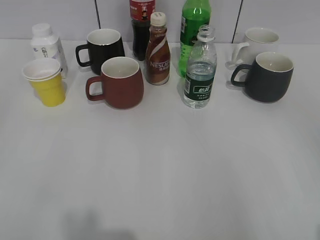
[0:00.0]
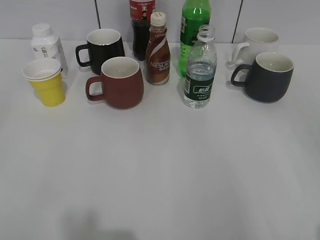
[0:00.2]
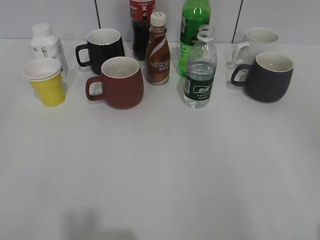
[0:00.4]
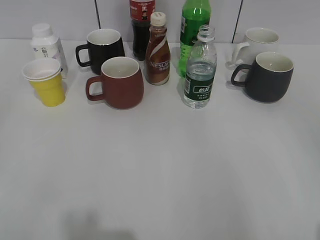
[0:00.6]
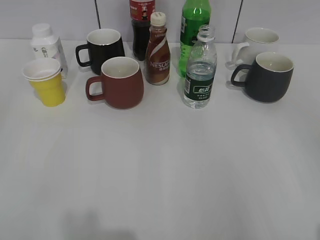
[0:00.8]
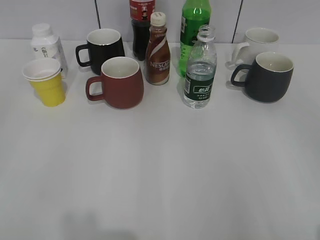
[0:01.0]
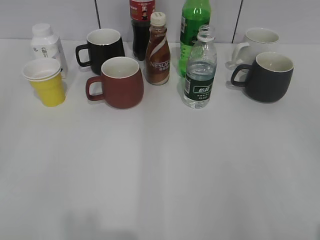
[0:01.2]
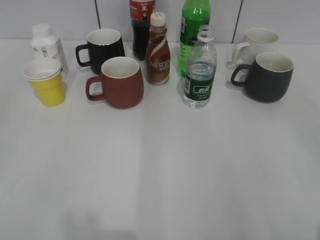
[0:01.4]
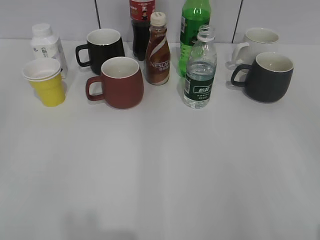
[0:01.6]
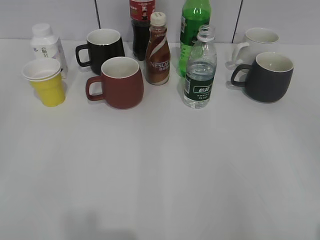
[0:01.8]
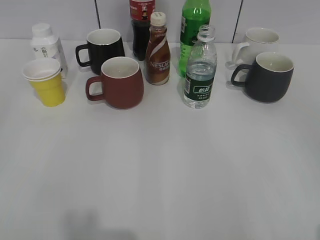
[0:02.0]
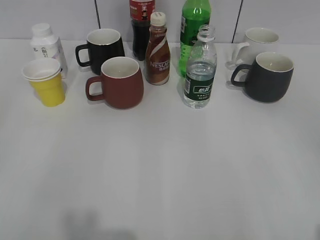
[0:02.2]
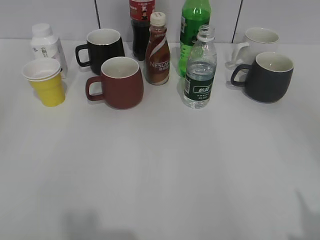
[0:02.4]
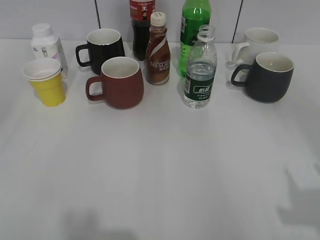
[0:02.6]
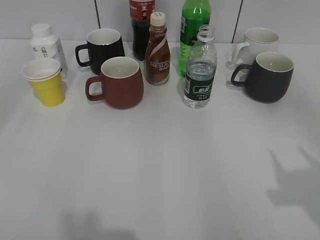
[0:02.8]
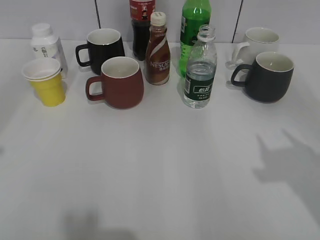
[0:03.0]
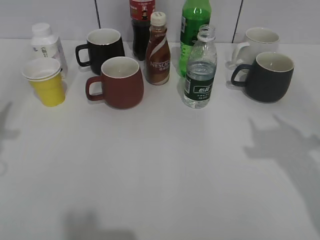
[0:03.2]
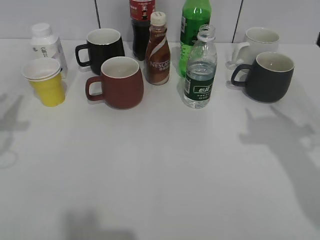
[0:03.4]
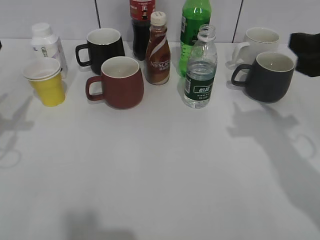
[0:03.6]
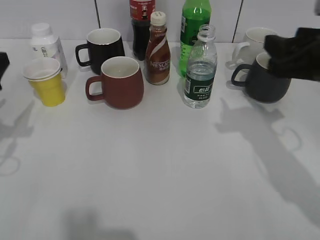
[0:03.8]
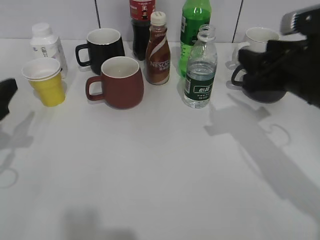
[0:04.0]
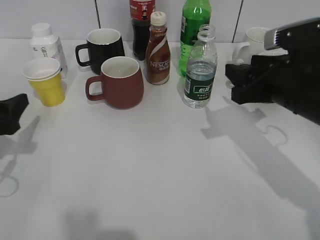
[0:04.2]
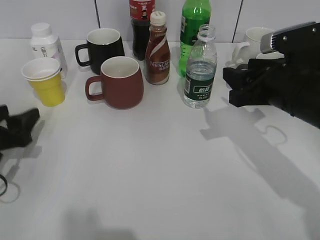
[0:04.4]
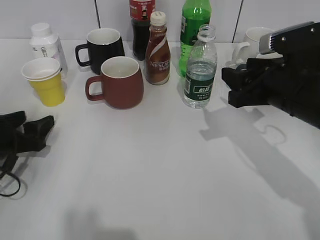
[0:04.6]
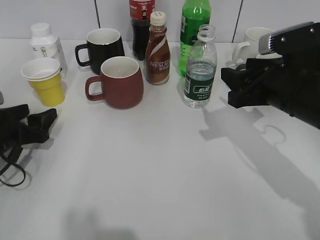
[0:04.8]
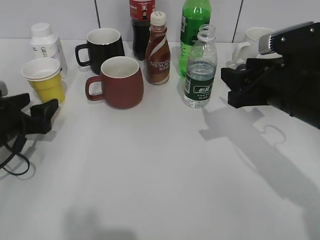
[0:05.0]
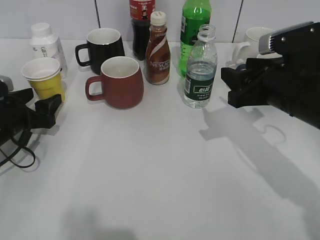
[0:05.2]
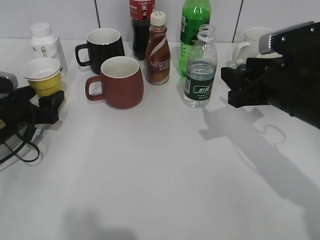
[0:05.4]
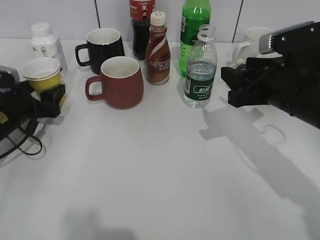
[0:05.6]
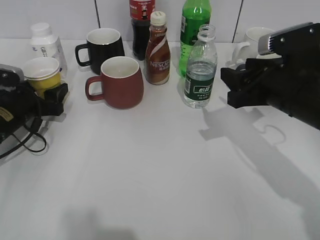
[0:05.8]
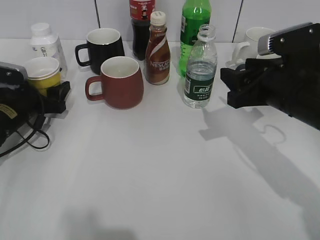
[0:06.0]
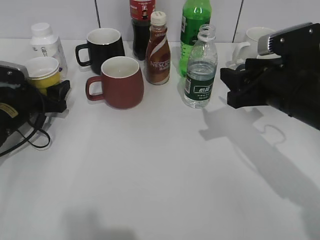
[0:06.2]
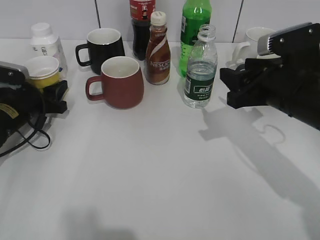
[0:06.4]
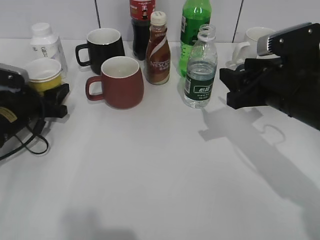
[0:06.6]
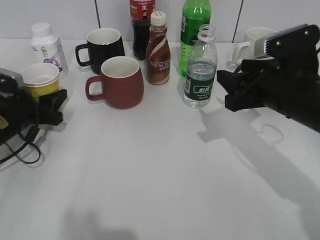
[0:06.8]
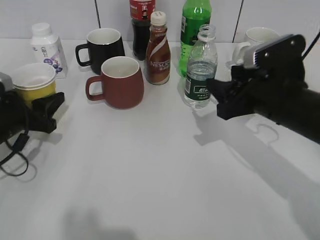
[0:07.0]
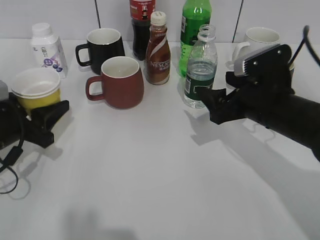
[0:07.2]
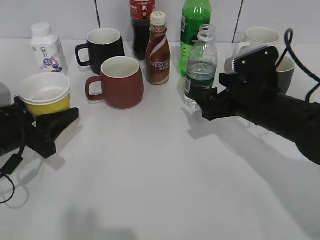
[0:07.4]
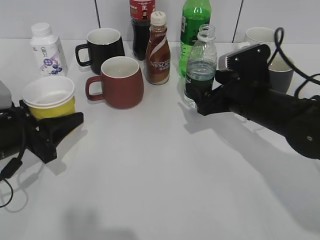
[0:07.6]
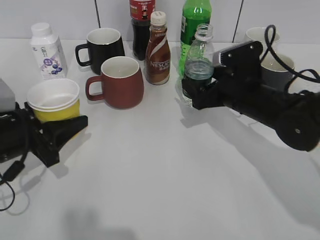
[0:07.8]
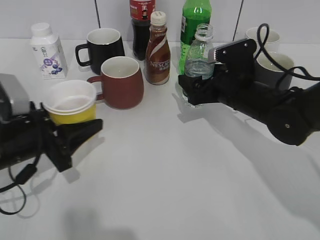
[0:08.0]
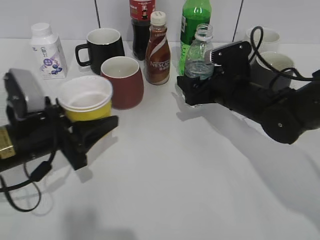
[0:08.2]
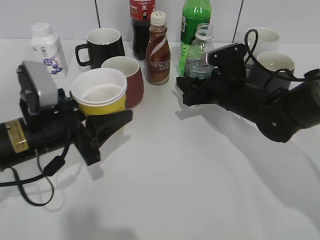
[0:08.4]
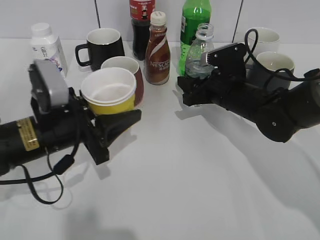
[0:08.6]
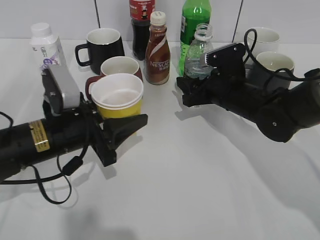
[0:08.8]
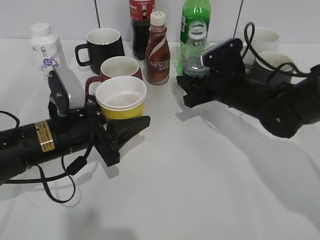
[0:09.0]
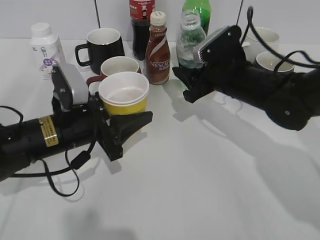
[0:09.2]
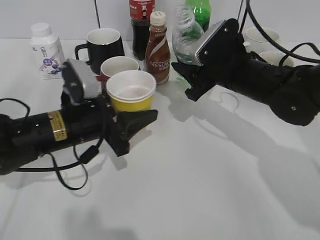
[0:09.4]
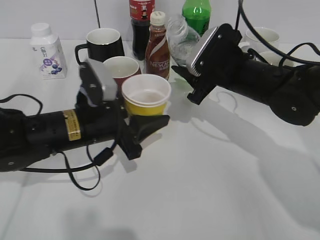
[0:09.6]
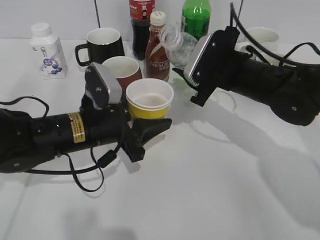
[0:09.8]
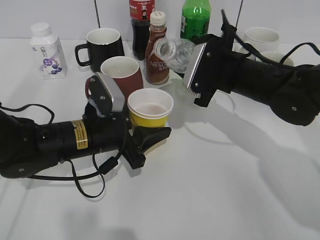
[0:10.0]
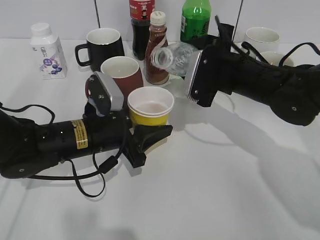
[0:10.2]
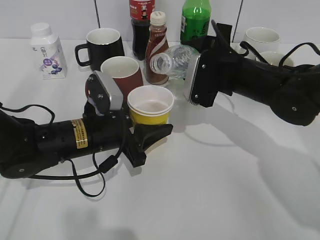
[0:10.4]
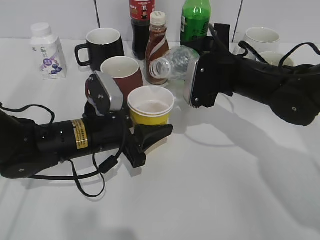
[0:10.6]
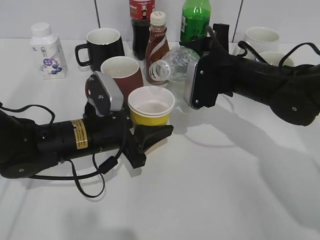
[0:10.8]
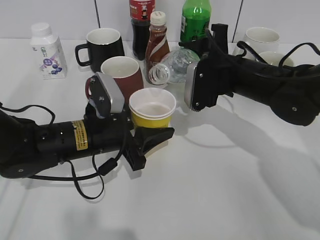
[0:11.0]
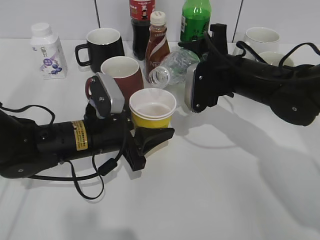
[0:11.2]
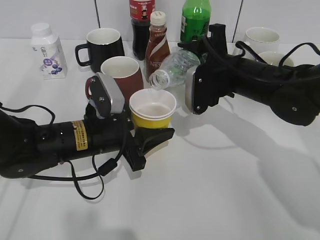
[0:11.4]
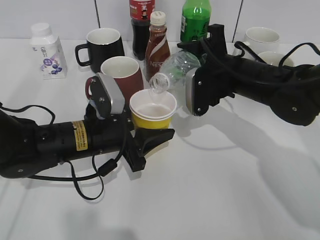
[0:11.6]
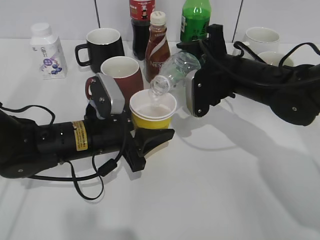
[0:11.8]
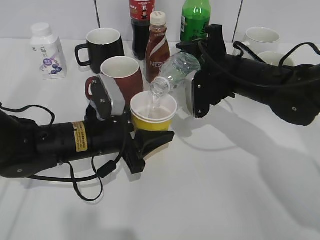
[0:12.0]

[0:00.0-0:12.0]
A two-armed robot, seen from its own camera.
Step, 0:00.0 to 0:06.4: Grasp the yellow paper cup with left gripper.
Step, 0:06.6 to 0:07.8: Lift the yellow paper cup with left gripper.
Step, 0:08.0 to 0:08.4: Grasp the bottle with water with right gripper.
0:01.6 to 0:03.0: The two grippers go about 10 cm forward.
0:03.0 to 0:04.4: The right gripper heads forward, downward and to the left, covering approximately 20 cm; the left gripper goes roughly 20 cm downward and forward, and opens its fingers.
0:04.4 to 0:06.0: The left gripper heads forward, covering about 10 cm.
0:06.0 to 0:07.6: The left gripper goes approximately 10 cm backward, and closes up; the right gripper shifts some 5 cm downward, and opens.
0:07.6 to 0:09.0: The left gripper moves to the right, roughly 10 cm. The right gripper changes place by approximately 5 cm, and closes.
0:09.0 to 0:10.4: The right gripper shifts by roughly 5 cm.

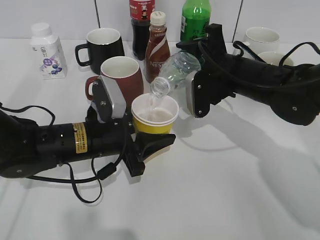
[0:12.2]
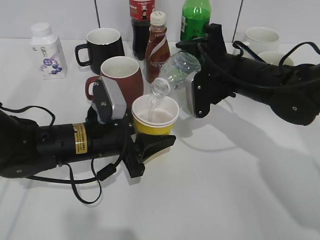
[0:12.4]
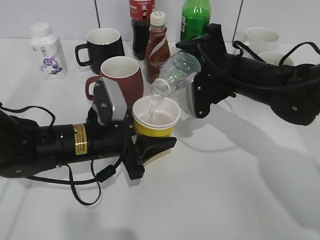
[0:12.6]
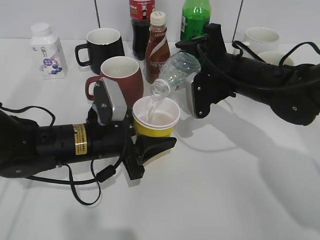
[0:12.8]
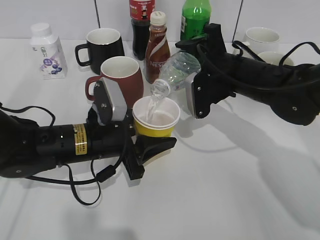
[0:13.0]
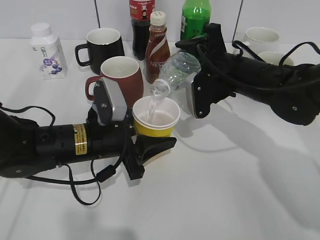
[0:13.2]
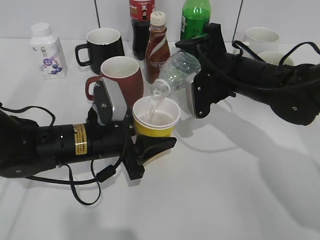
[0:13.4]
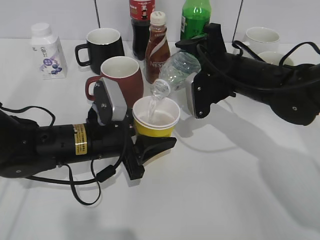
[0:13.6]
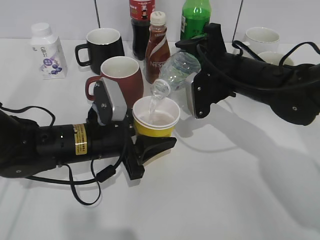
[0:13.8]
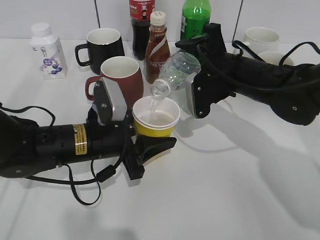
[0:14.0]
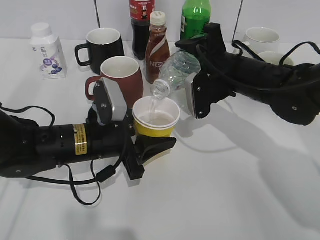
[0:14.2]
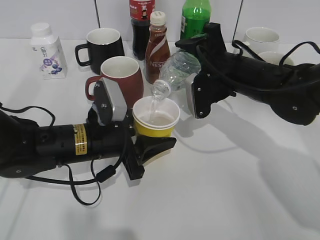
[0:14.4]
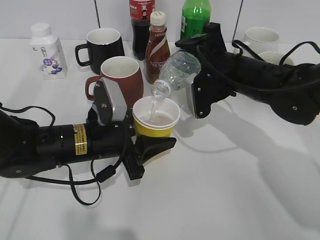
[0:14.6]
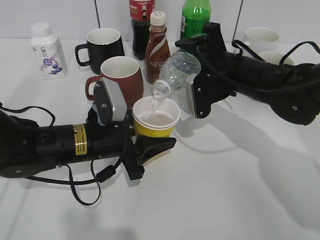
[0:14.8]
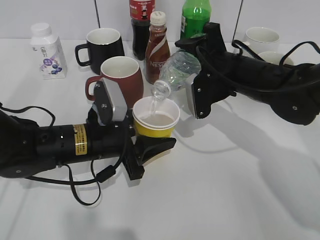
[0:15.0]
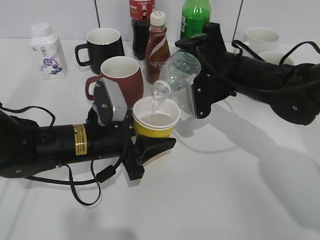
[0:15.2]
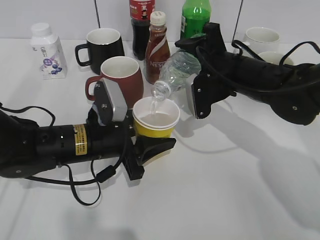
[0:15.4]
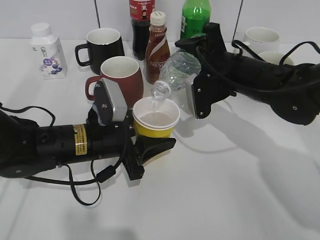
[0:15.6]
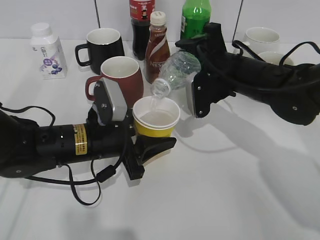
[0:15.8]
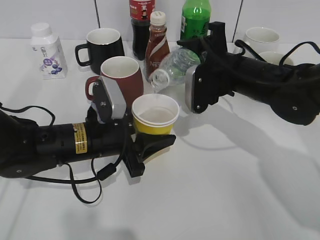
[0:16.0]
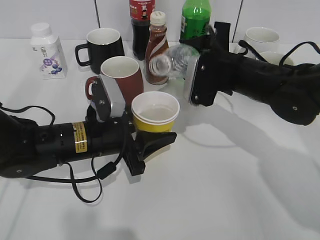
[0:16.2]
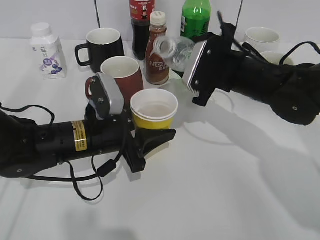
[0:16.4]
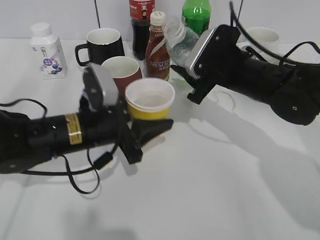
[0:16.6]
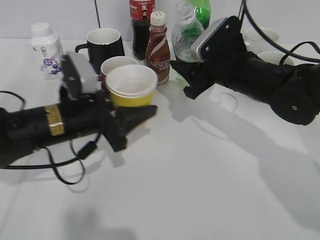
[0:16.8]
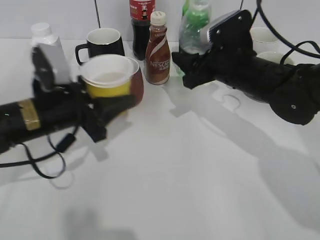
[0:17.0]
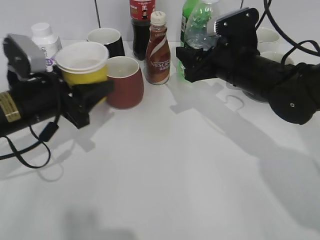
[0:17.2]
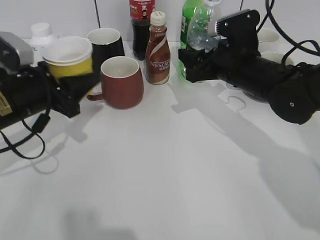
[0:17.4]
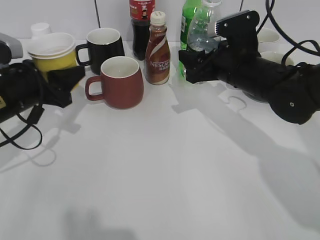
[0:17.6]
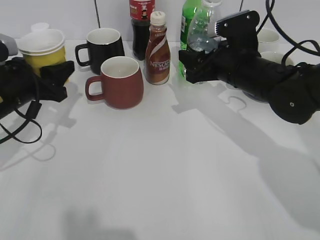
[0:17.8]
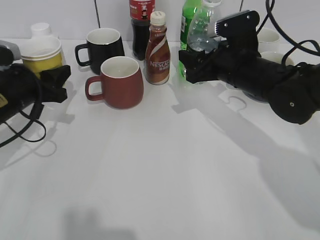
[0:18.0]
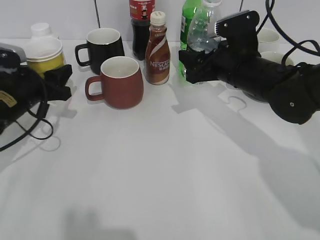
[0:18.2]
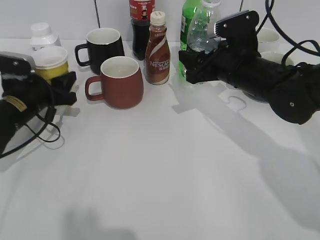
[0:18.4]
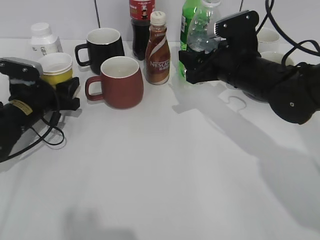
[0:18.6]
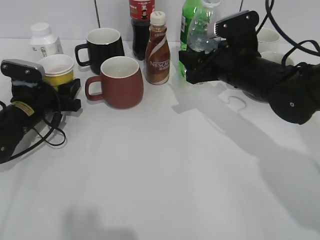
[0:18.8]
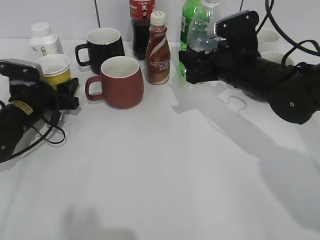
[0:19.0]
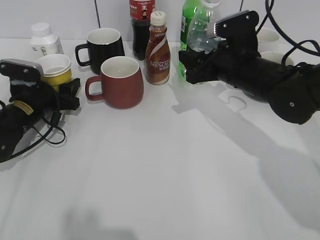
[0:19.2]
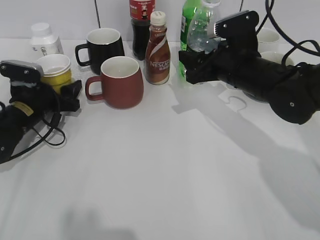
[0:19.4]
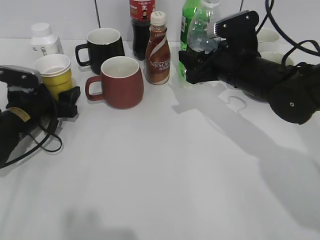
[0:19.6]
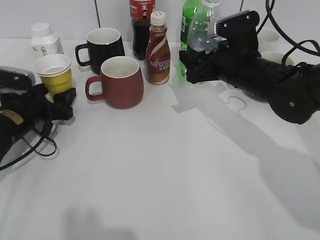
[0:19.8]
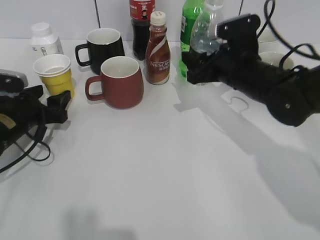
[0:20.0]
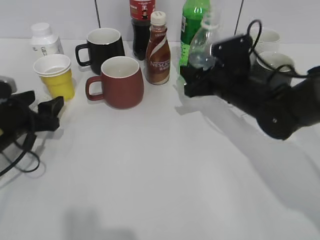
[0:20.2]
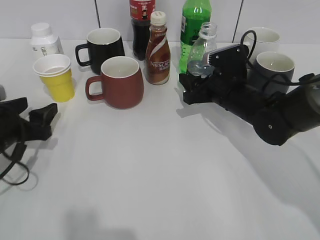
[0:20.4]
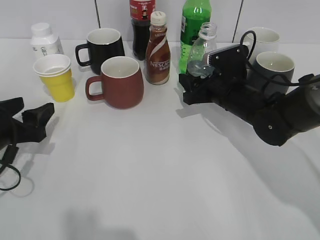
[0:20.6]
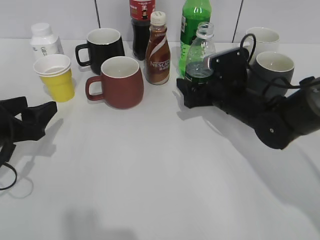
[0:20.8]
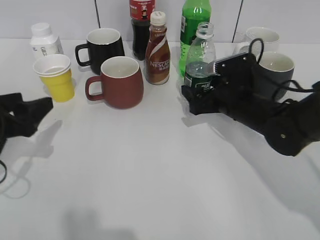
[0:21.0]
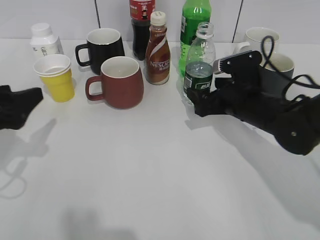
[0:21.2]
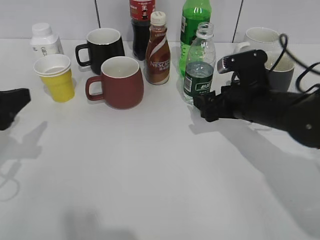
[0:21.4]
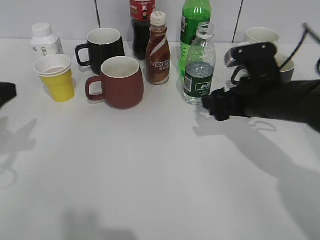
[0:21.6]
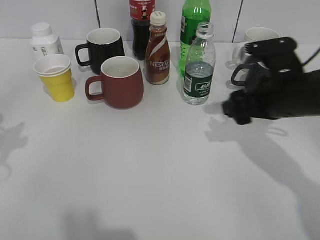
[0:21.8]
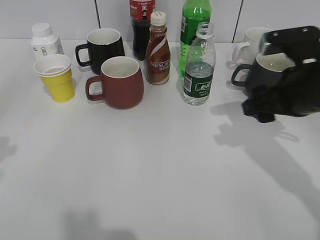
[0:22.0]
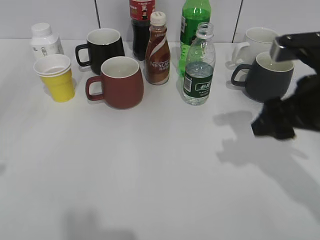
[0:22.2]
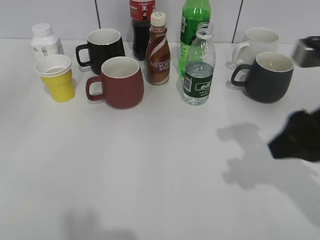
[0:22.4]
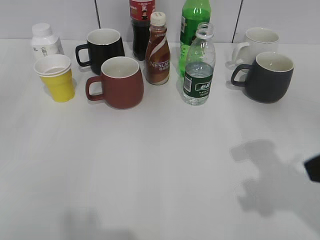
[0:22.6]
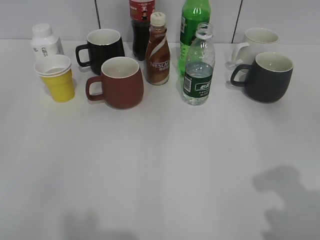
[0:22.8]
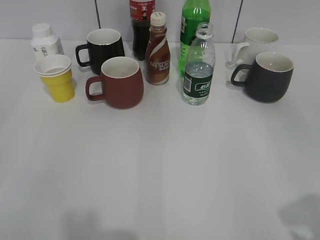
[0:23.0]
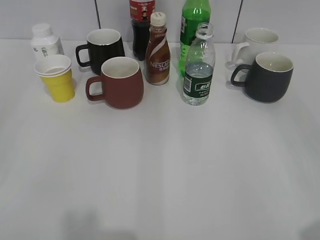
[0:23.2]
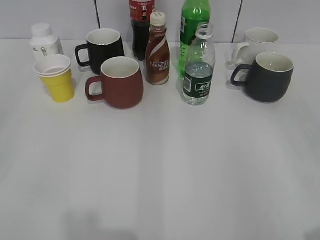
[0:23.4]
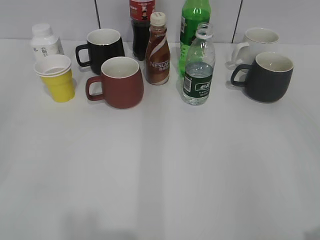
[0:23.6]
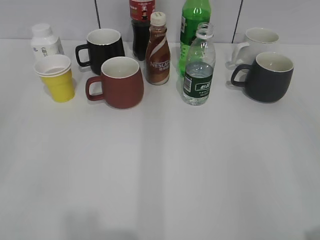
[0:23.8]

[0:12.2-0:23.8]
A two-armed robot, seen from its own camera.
Step, 0:19.8 to 0:21.0: Place the water bottle on the table with right gripper.
0:12.2 to 0:13.6: Neither gripper changes place.
0:13.6 to 0:15.0: Both grippers stay put.
0:16.6 to 0:18.0: The left gripper is displaced to the left by approximately 15 cm.
0:18.0 to 0:19.4: The left gripper heads downward, covering about 5 cm, and opens up.
0:19.4 to 0:21.0: The left gripper travels backward and upward by some 15 cm; the right gripper shifts about 5 cm downward, and opens up.
0:21.0 to 0:22.4: The left gripper moves upward and backward, approximately 20 cm; the right gripper travels upward, backward and to the right by approximately 20 cm, and closes its fingers.
0:22.4 to 0:23.8: The right gripper is displaced backward and to the right by roughly 20 cm.
